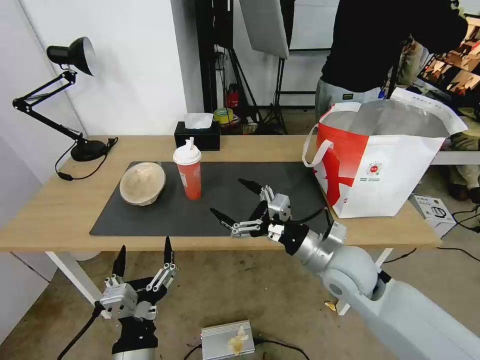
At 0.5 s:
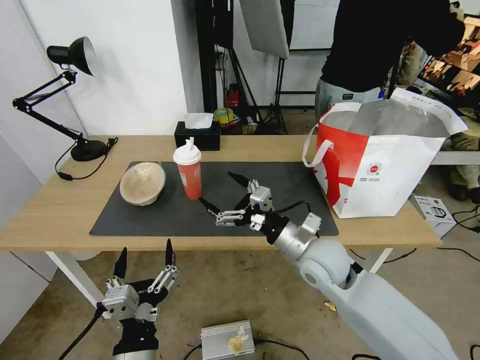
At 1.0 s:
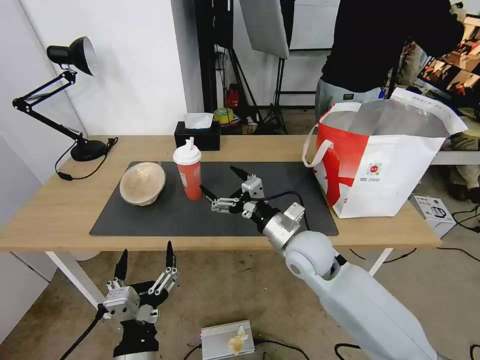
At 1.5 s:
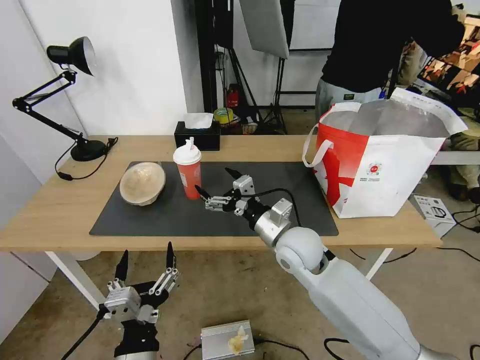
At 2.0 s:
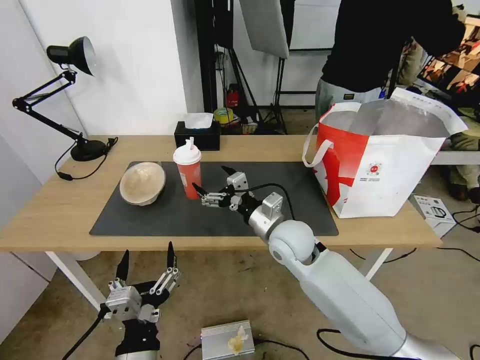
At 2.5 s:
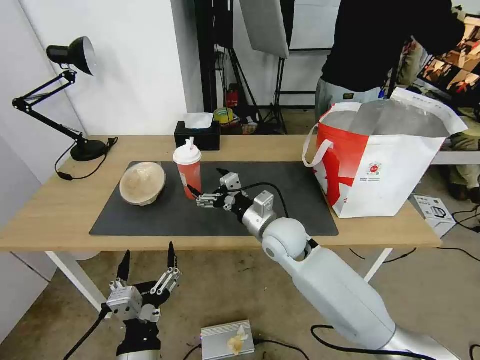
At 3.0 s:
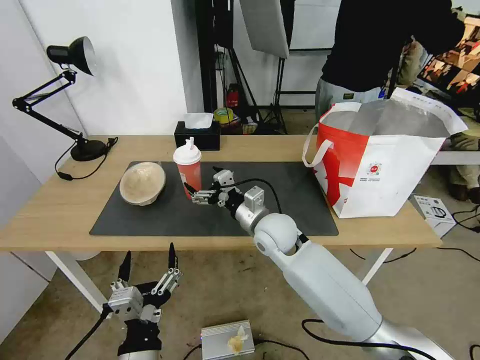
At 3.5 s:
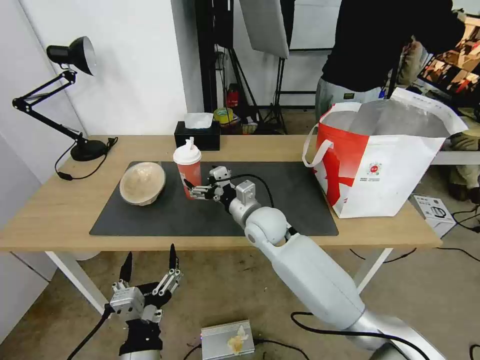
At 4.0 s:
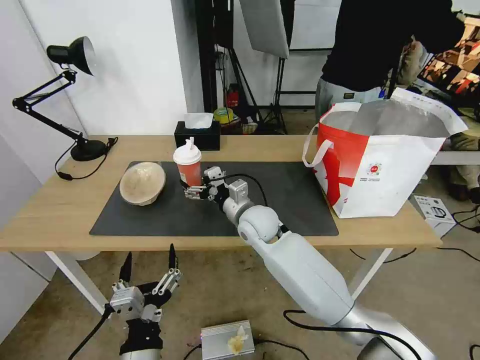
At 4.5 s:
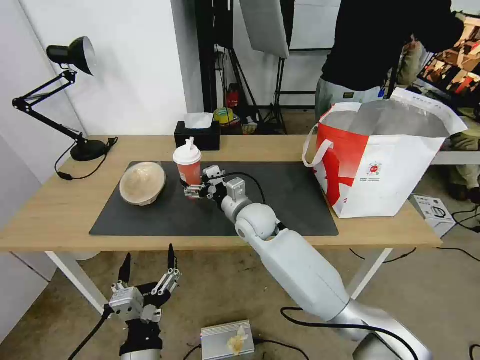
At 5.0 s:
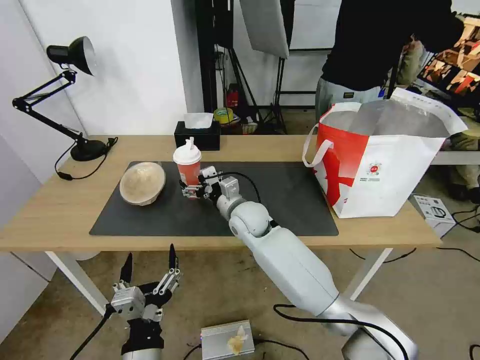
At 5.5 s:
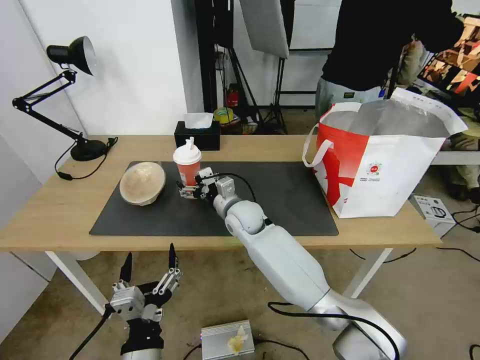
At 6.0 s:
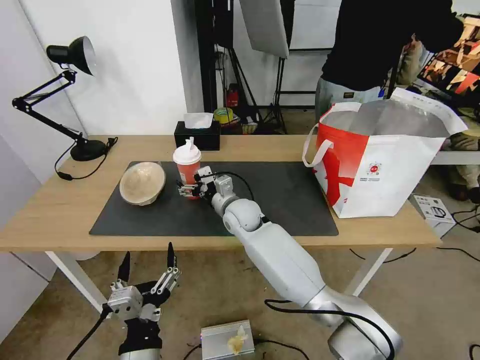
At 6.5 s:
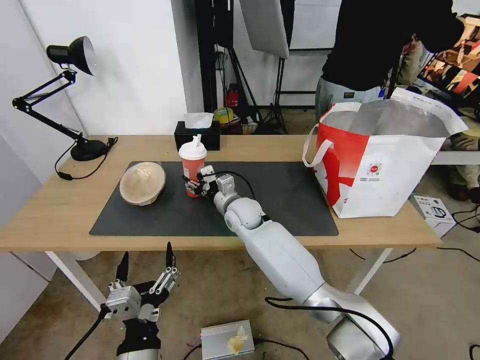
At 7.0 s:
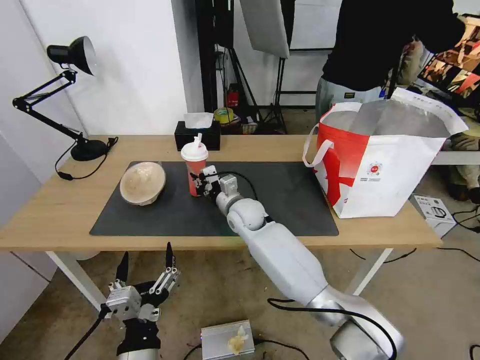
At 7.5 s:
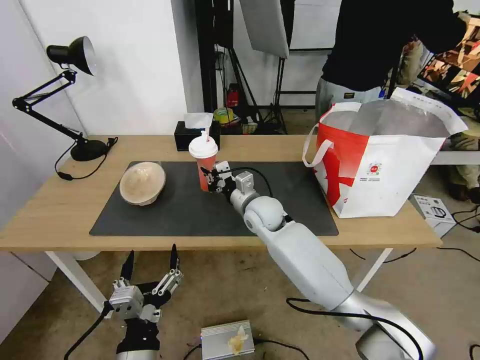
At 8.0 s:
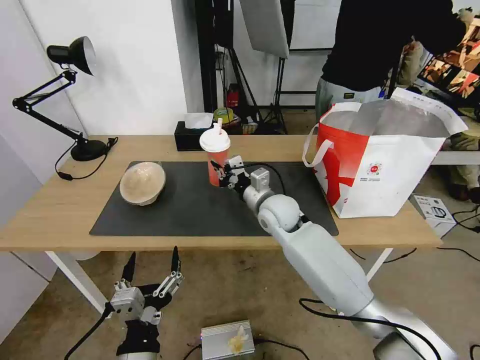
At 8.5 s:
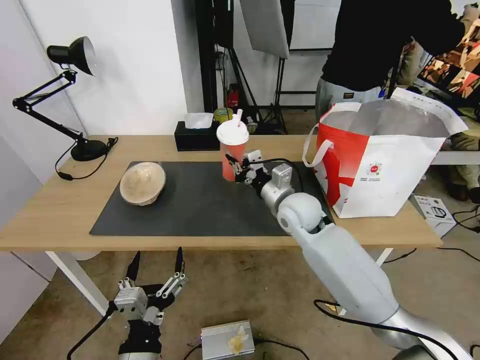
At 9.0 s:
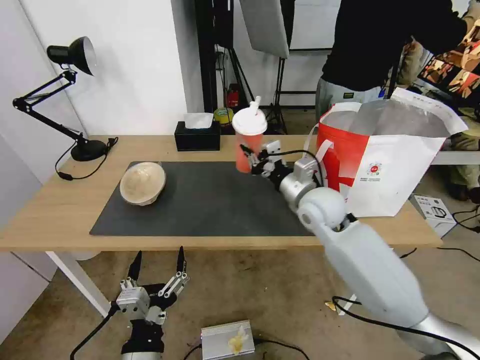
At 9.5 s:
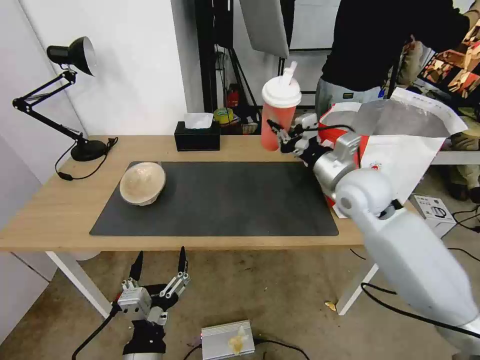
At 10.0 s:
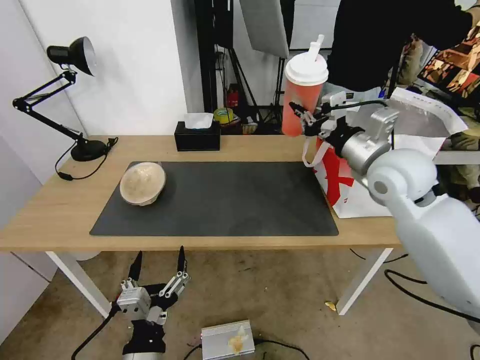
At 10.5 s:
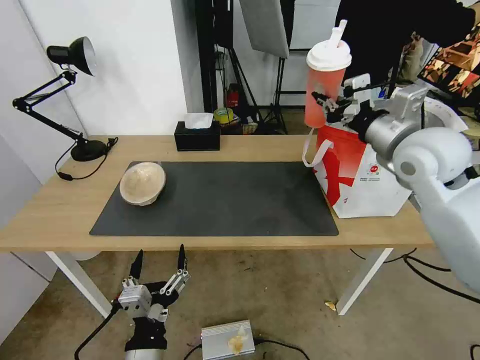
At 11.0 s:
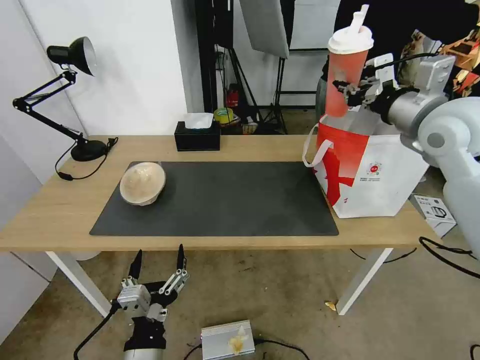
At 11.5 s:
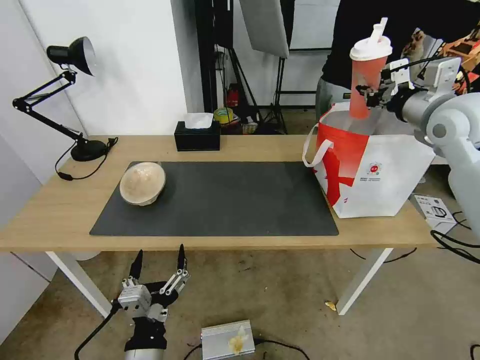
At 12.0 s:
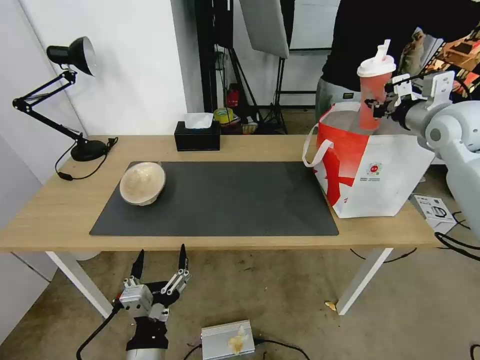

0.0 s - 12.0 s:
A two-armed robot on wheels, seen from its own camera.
Task of the whole recording: Pick up the trash from the table and place it into the takeout bag.
0.0 s - 2.0 s: The right gripper moves to the left and forward, about 10 cm.
2.0 s - 4.0 s: The right gripper heads to the left and forward, covering approximately 10 cm.
4.0 s - 6.0 s: The right gripper shifts by roughly 5 cm.
6.0 s - 8.0 s: The right gripper travels to the right by some 10 cm, and closes up.
8.0 s - 10.0 s: The right gripper shifts roughly 25 cm to the right and upward.
10.0 s - 12.0 s: The right gripper is displaced to the right and forward by roughly 15 cm.

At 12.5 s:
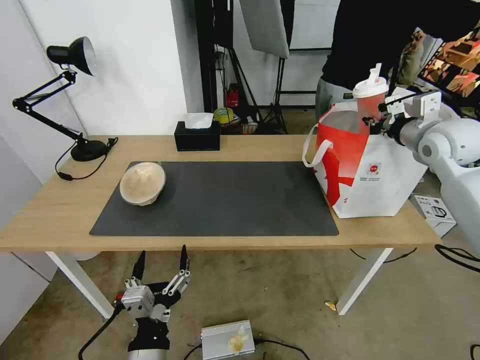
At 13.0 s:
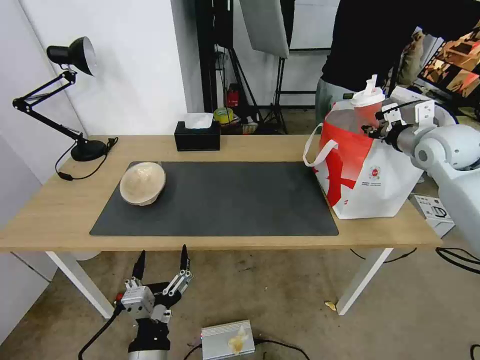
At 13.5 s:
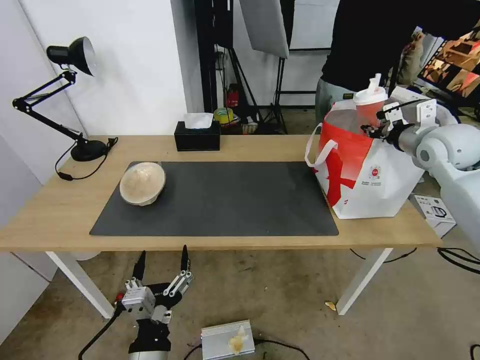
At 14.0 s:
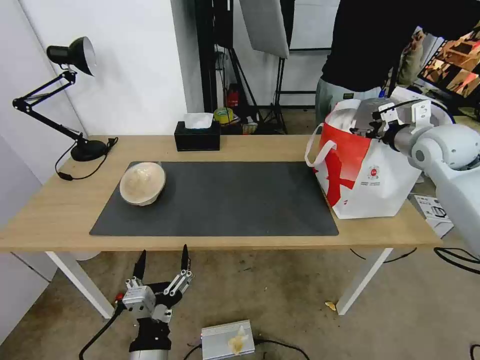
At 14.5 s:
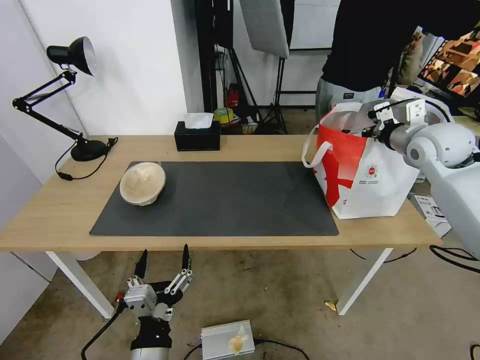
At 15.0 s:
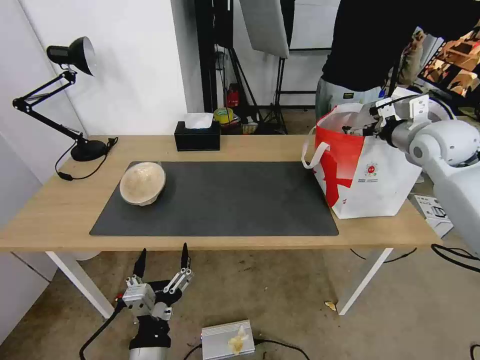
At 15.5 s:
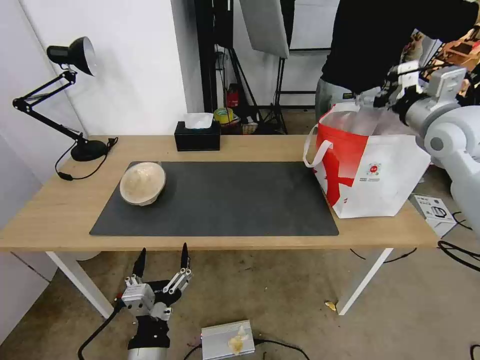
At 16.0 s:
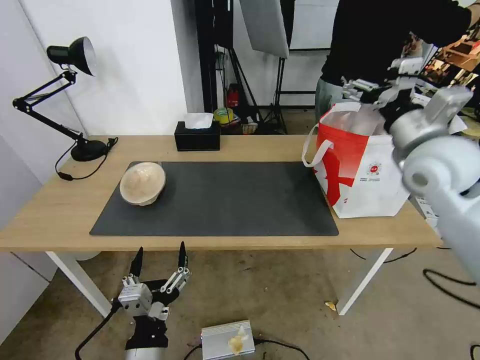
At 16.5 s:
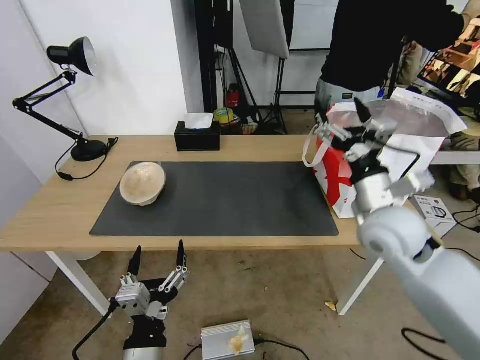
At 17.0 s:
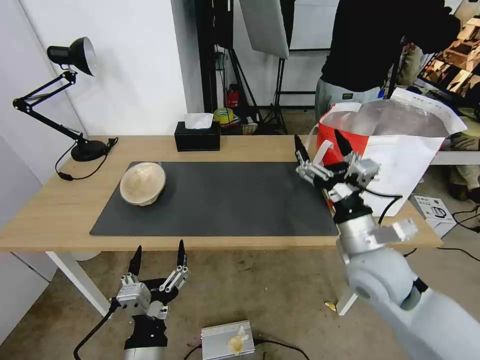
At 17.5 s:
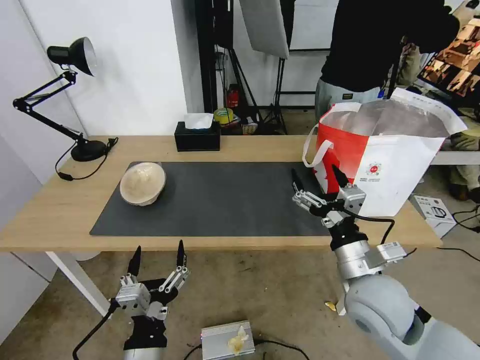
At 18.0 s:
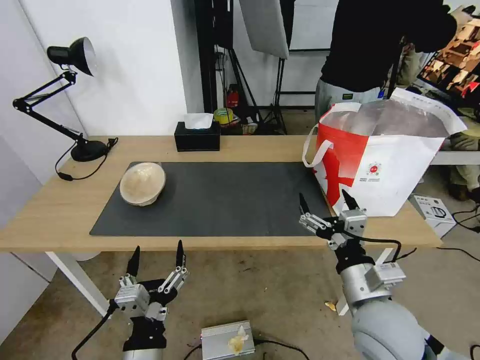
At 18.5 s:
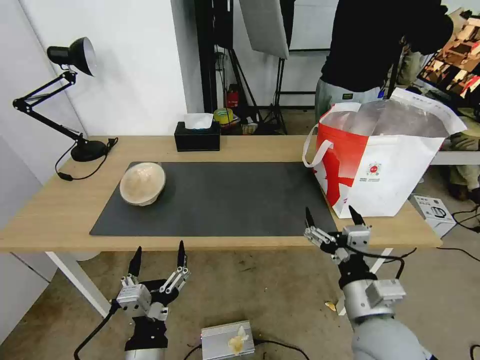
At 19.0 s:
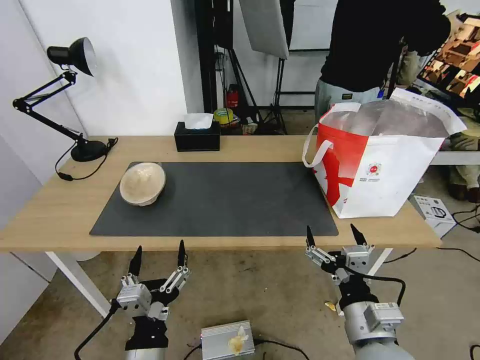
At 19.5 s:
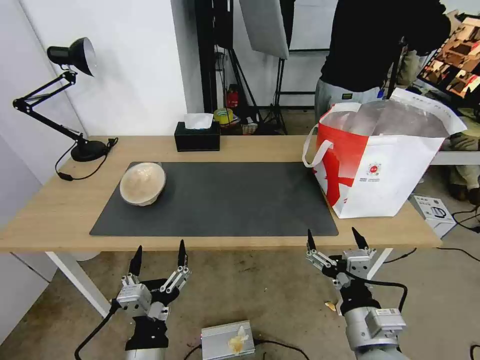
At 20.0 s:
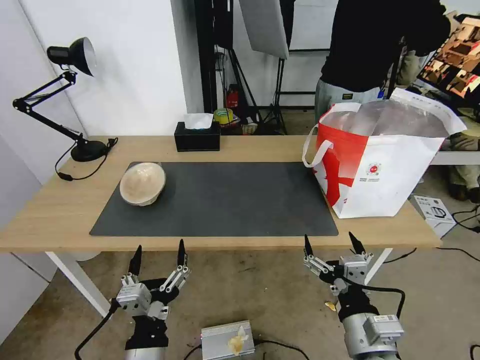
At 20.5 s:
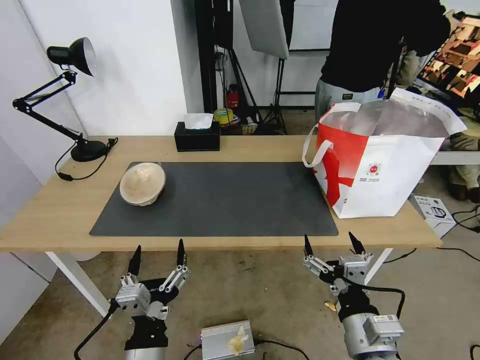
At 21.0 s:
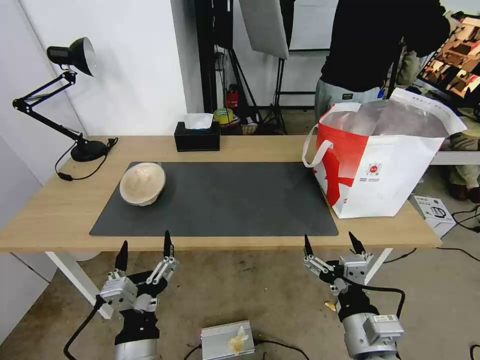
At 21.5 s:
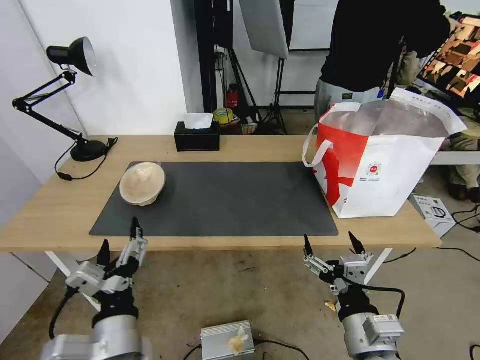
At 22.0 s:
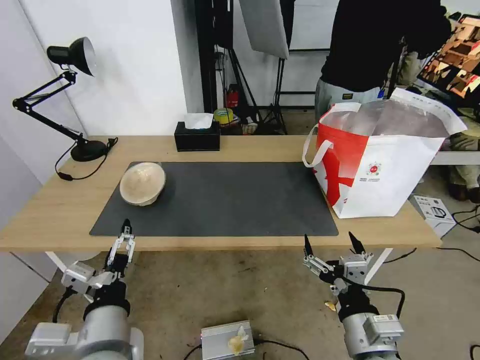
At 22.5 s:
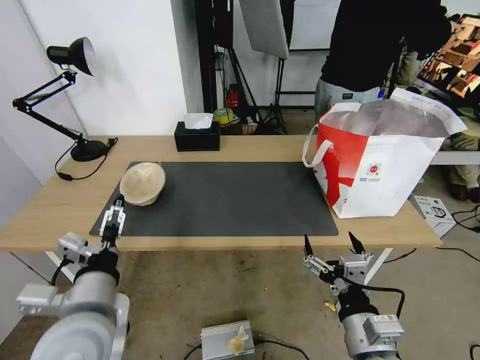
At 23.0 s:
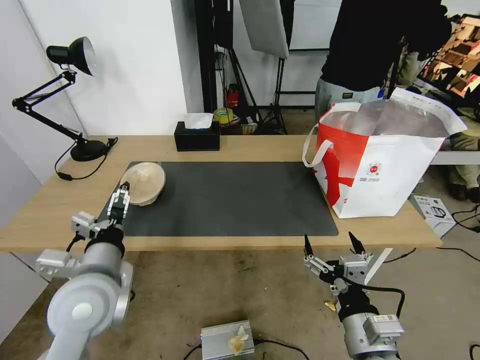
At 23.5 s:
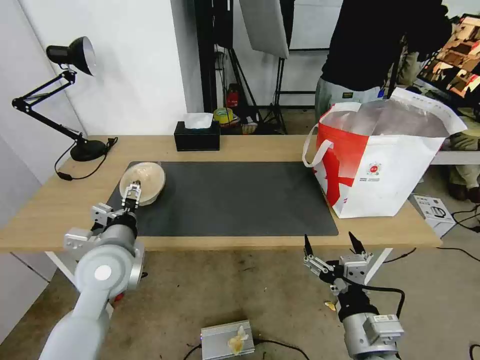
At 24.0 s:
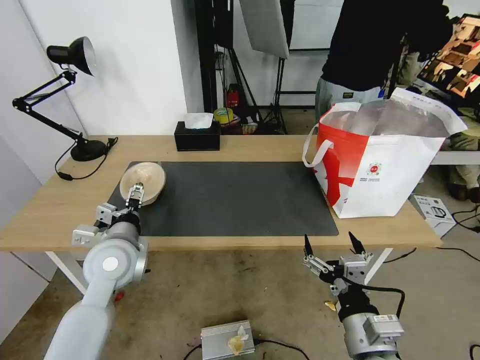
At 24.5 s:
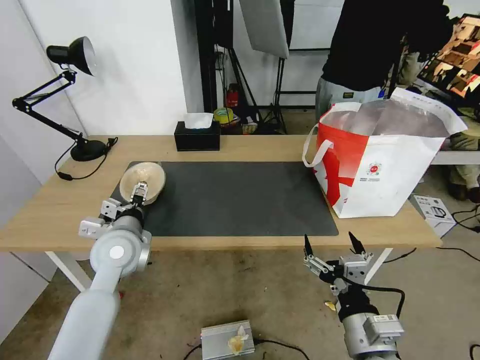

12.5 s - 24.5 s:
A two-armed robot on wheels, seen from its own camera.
Task of the whole recording: Pick up the trash from the table and place it into the takeout bag.
12.5 s - 14.5 s: The right gripper opens.
14.5 s - 16.5 s: The right gripper goes roughly 20 cm backward, to the left and downward.
16.5 s - 18.5 s: The right gripper travels backward and downward by roughly 20 cm.
18.5 s - 20.5 s: The right gripper ends up roughly 5 cm from where it was.
20.5 s - 22.5 s: The left gripper heads upward, forward and to the left, covering roughly 15 cm.
22.5 s - 24.5 s: The left gripper shifts about 15 cm forward.

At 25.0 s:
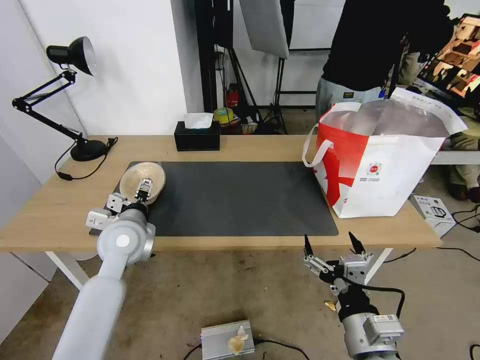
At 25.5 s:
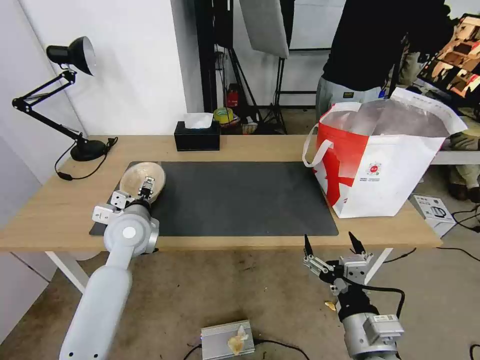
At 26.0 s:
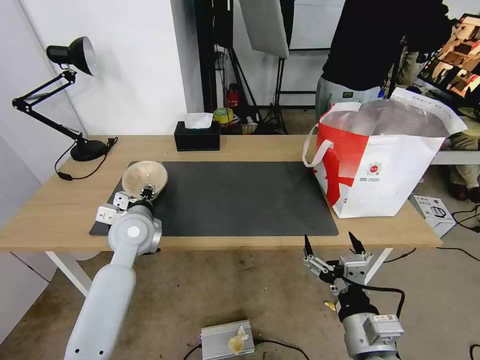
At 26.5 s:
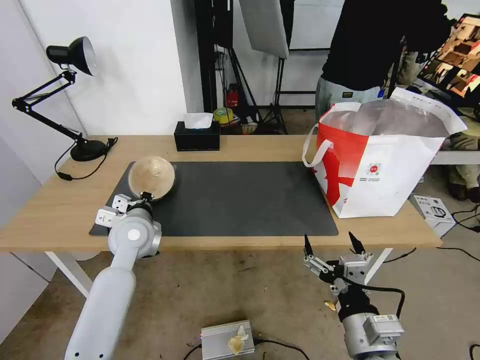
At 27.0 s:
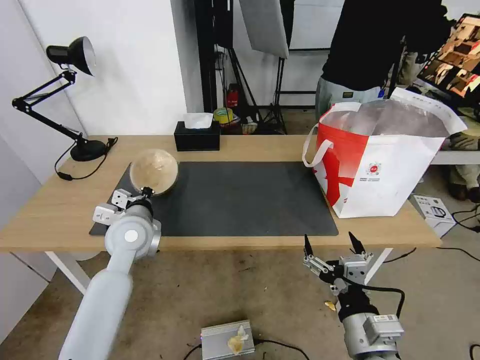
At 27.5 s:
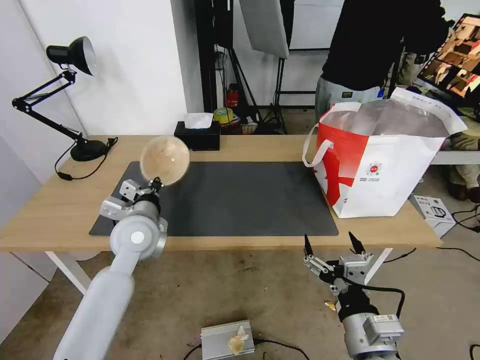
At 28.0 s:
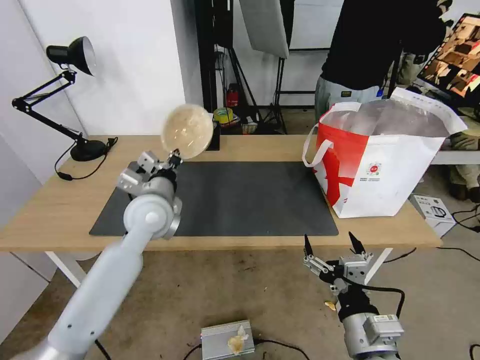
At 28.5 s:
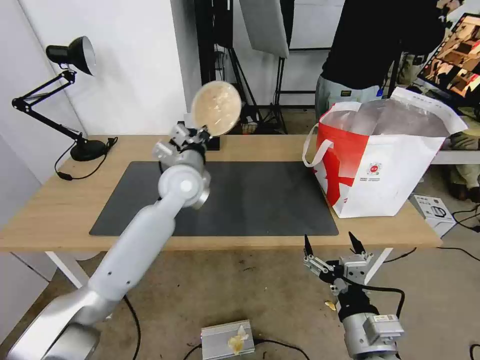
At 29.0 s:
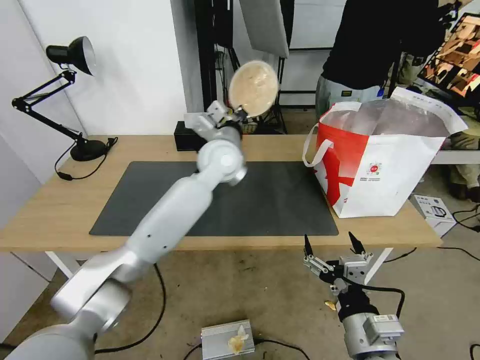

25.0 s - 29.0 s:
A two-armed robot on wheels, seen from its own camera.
Task of the whole recording: Pick up the trash from the table and place it into the takeout bag.
25.0 s - 27.0 s: The left gripper closes its fingers.
27.0 s - 29.0 s: The left gripper heads to the right, forward and upward, covering approximately 25 cm.
